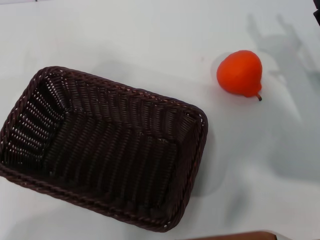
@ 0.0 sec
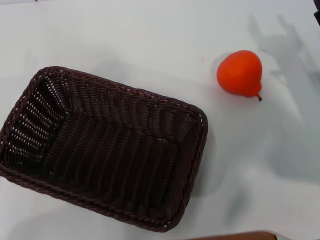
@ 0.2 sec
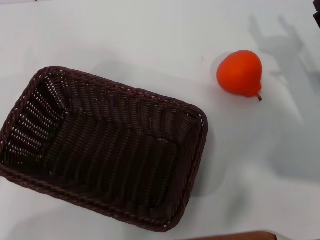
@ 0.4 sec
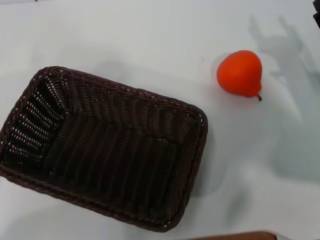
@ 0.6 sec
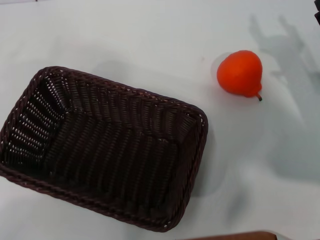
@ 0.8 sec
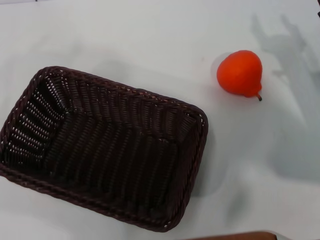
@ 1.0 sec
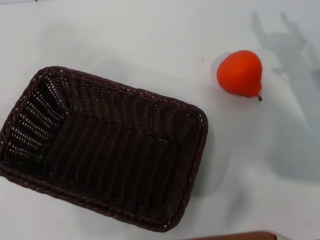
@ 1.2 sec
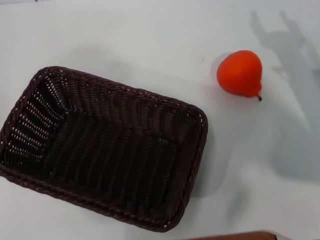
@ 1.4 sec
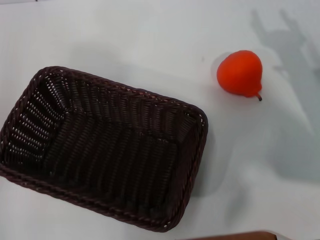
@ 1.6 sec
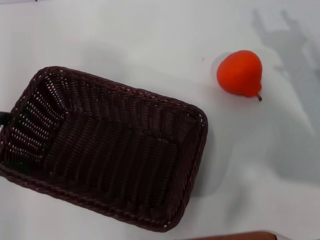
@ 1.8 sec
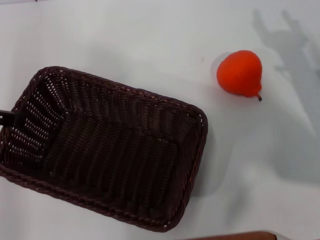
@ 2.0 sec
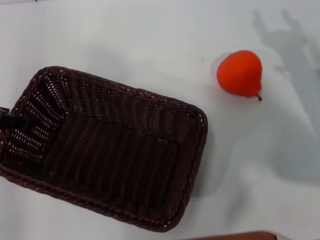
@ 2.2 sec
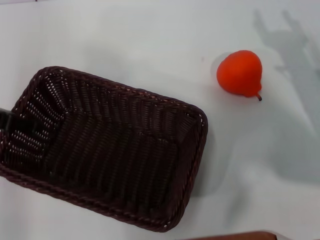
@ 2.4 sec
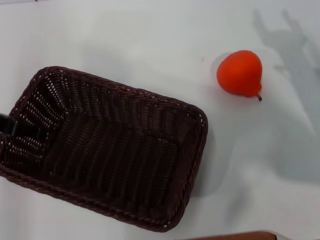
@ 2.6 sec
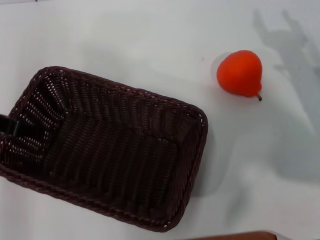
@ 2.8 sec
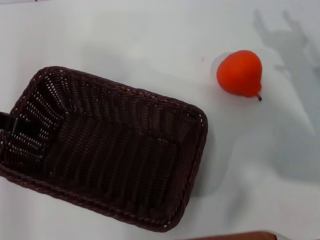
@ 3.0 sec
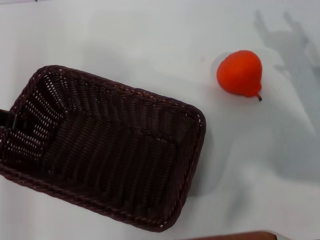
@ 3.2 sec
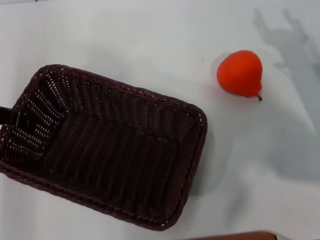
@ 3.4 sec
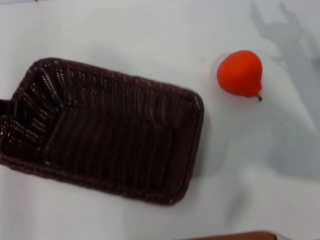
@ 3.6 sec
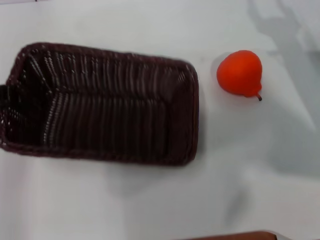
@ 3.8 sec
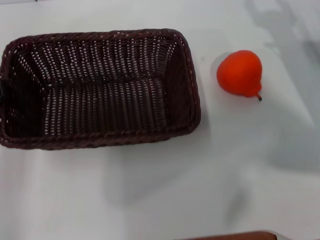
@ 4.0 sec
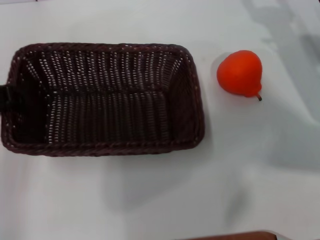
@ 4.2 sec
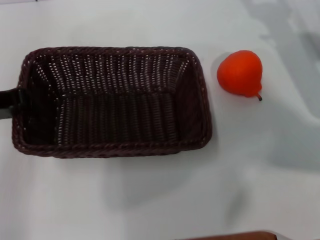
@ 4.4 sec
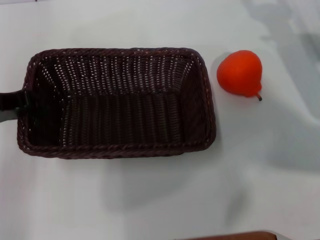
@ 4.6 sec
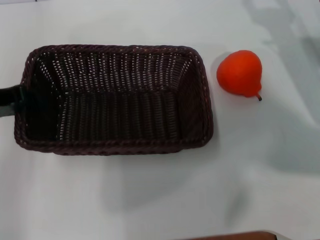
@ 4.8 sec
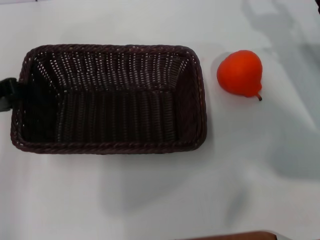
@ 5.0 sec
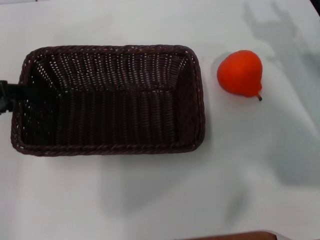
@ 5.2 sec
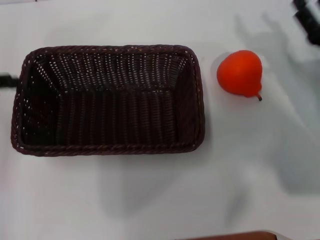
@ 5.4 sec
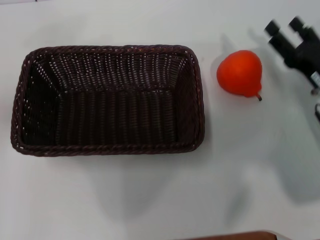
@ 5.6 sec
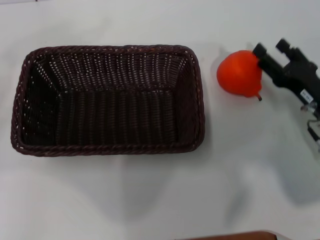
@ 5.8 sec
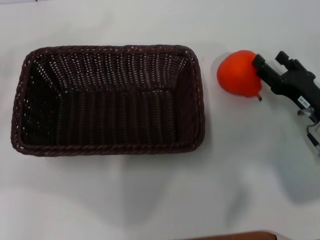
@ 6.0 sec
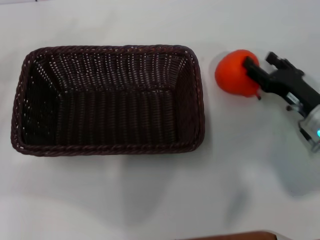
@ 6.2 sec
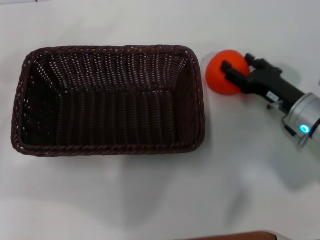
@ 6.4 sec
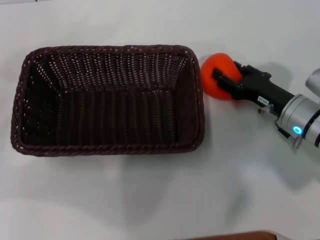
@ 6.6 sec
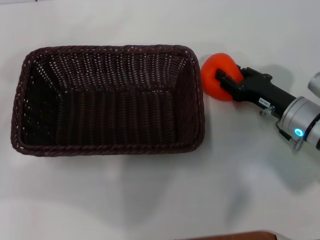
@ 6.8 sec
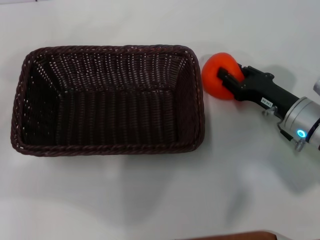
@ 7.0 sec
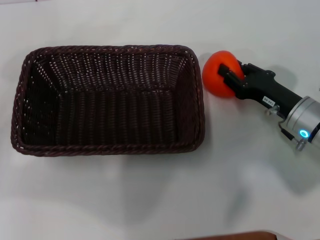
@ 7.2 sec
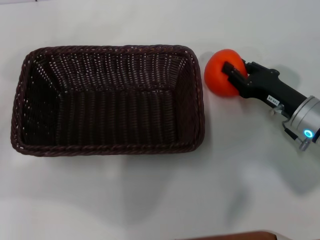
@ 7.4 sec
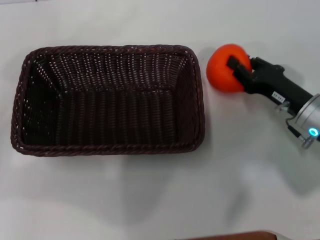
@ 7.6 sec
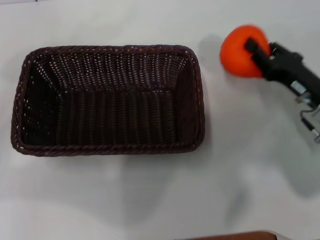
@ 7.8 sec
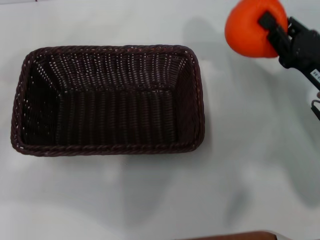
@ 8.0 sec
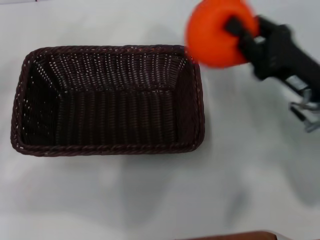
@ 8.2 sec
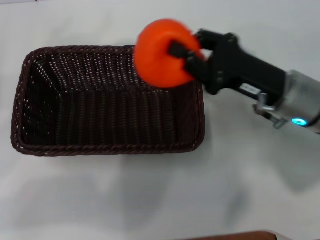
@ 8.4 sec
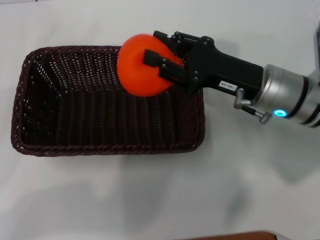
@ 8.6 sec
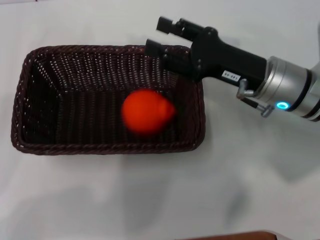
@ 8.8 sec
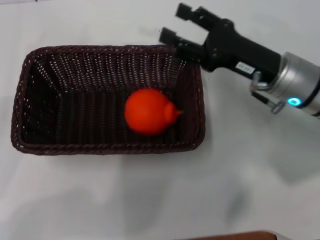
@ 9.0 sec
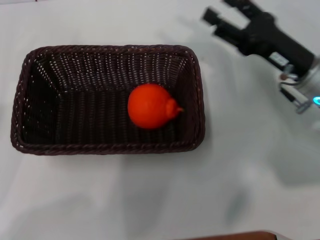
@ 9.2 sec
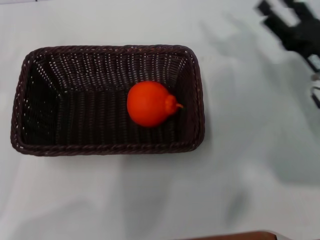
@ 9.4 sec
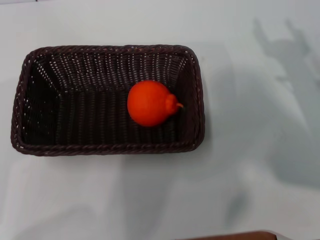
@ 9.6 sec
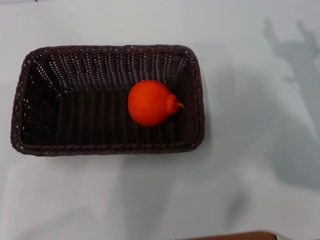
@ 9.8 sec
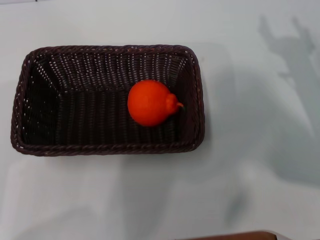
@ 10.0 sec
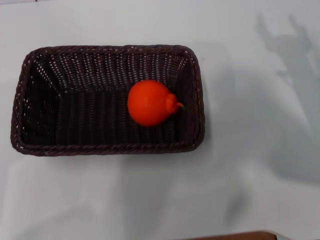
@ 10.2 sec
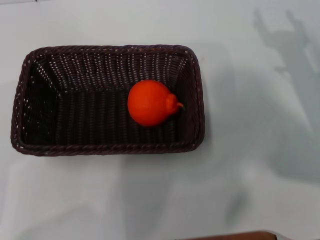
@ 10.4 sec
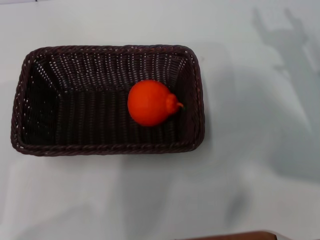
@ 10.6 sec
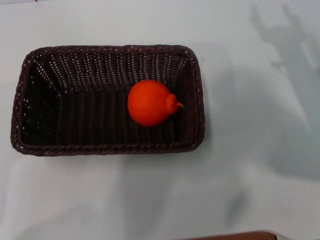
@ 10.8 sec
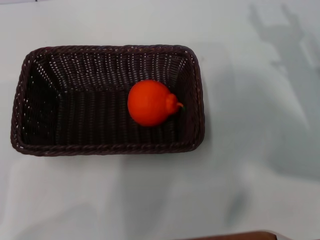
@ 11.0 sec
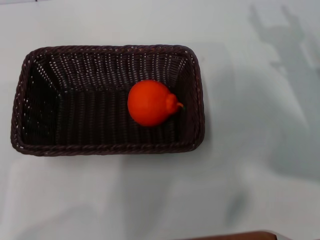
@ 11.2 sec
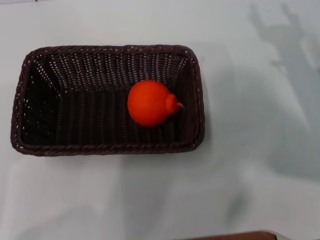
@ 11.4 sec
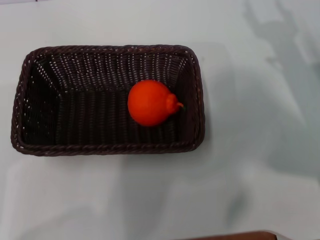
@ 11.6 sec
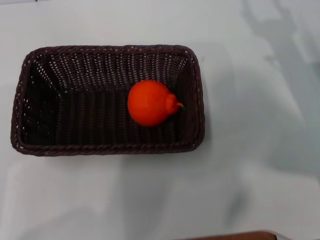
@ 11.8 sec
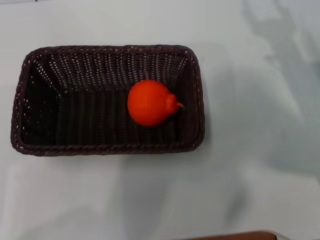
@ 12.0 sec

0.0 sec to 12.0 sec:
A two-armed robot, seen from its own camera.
Task of the whole recording: the left gripper pick up the black basket and place it horizontally in the middle of the table, the right gripper pick up the orange and place it into the black basket.
Step, 0.0 sec to 3.6 sec: Pick up the dark basket with the left gripper.
Step, 3.8 sec to 5.2 sec: Place the dark basket in the center of view with the left gripper.
Step, 5.6 sec to 7.6 sec: Pick up the orange with the right gripper.
Step, 7.8 sec to 8.8 sec: Place the orange into the dark basket with the right gripper.
0.0 sec to 1.6 sec: The left gripper heads upward and forward, covering some 20 cm.
1.6 sec to 3.0 sec: The left gripper travels downward and to the right by approximately 10 cm.
3.0 sec to 4.4 sec: The left gripper closes up. Meanwhile the right gripper moves forward, roughly 5 cm.
4.4 sec to 6.0 sec: The left gripper moves to the left, approximately 10 cm, and opens; the right gripper heads backward and downward, covering some 10 cm.
6.0 sec to 7.6 sec: The right gripper closes.
7.6 sec to 9.0 sec: The left gripper shifts roughly 5 cm downward, while the right gripper shifts approximately 10 cm upward and to the left, and opens.
9.0 sec to 10.4 sec: The right gripper goes some 10 cm to the right, and opens up.

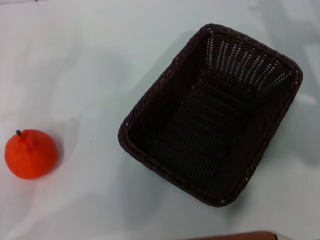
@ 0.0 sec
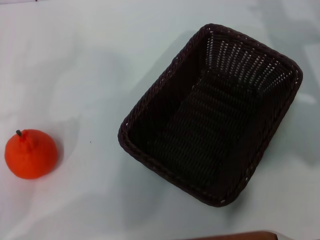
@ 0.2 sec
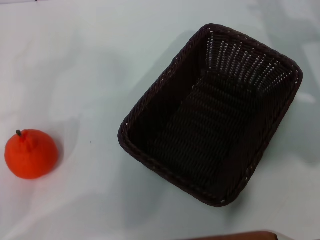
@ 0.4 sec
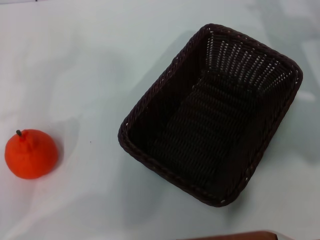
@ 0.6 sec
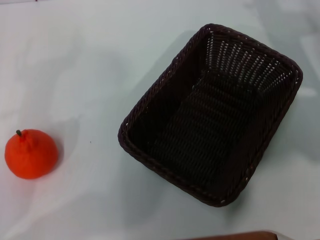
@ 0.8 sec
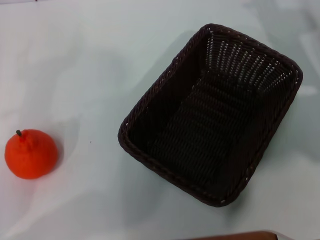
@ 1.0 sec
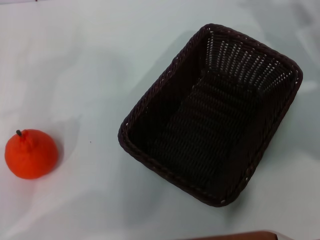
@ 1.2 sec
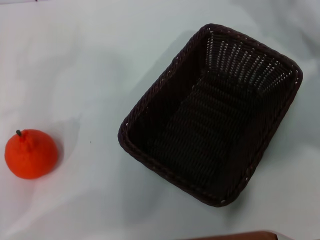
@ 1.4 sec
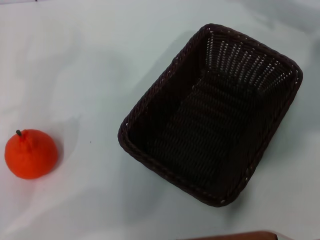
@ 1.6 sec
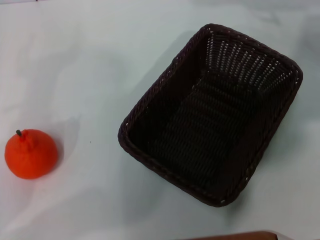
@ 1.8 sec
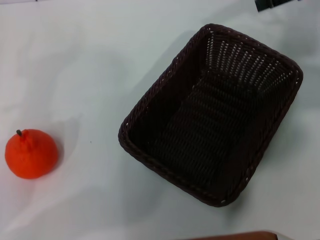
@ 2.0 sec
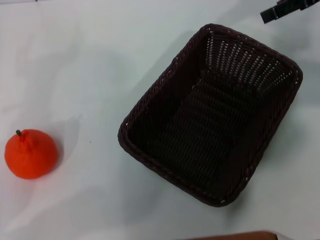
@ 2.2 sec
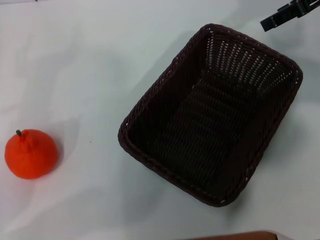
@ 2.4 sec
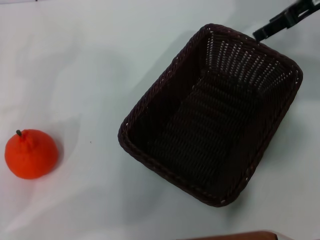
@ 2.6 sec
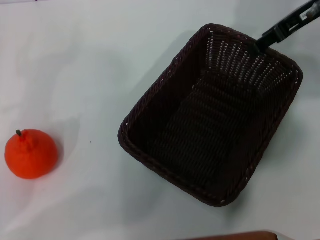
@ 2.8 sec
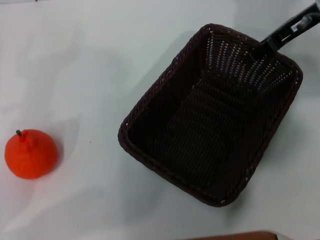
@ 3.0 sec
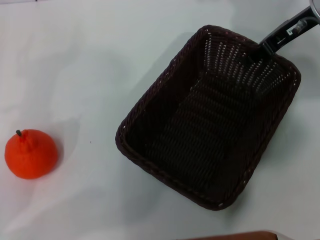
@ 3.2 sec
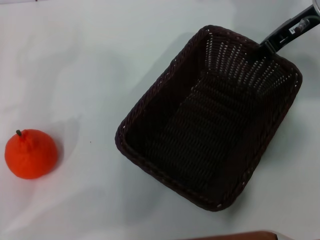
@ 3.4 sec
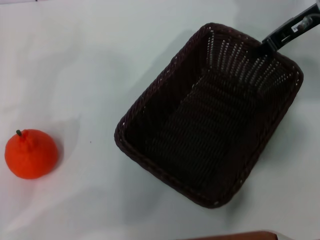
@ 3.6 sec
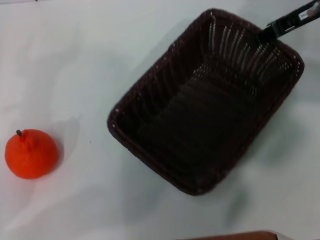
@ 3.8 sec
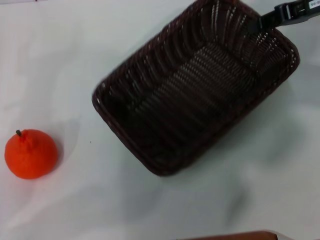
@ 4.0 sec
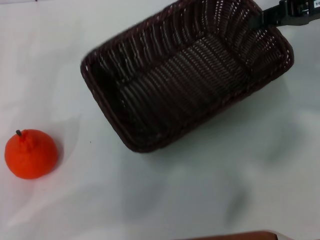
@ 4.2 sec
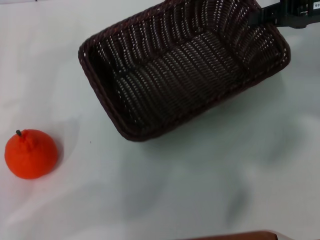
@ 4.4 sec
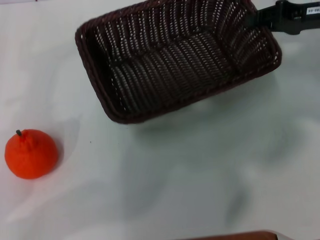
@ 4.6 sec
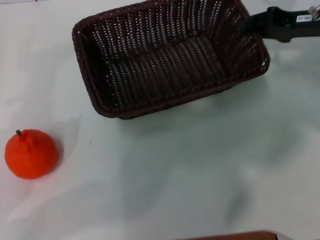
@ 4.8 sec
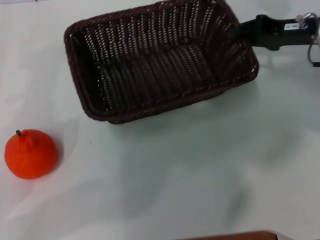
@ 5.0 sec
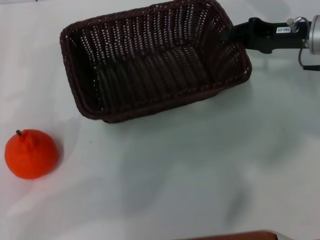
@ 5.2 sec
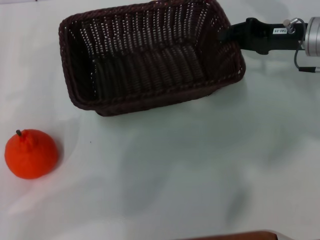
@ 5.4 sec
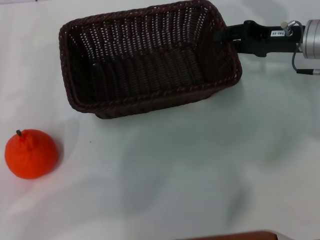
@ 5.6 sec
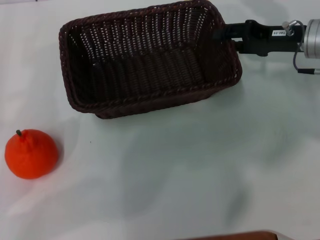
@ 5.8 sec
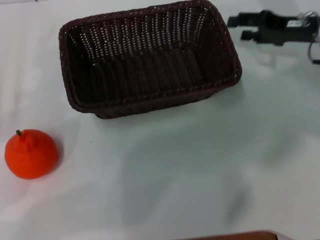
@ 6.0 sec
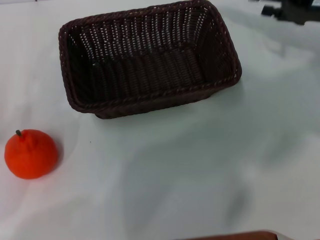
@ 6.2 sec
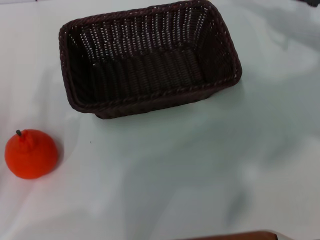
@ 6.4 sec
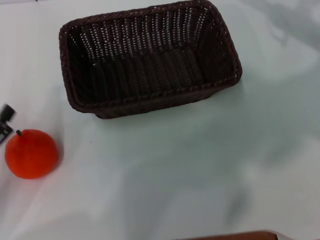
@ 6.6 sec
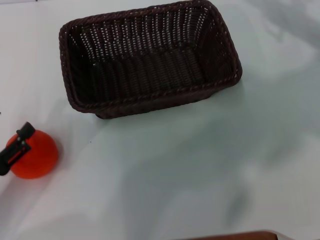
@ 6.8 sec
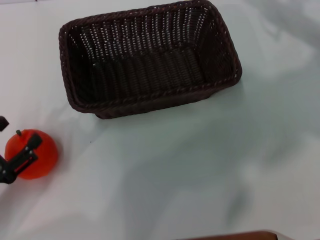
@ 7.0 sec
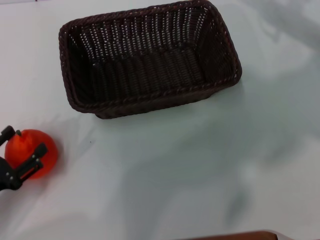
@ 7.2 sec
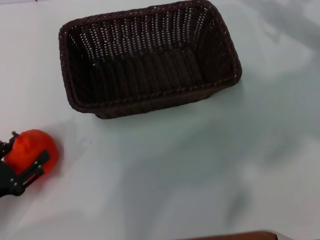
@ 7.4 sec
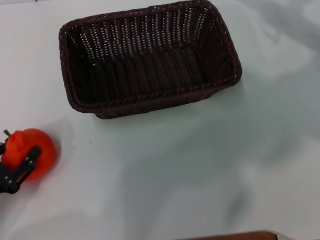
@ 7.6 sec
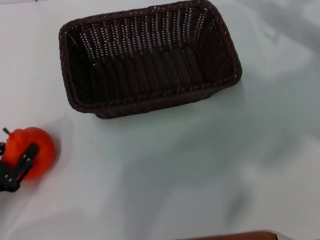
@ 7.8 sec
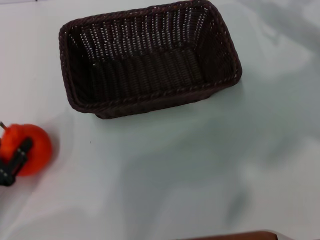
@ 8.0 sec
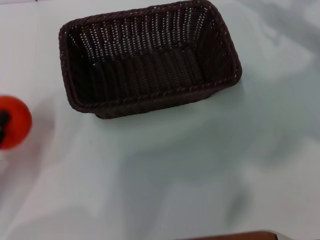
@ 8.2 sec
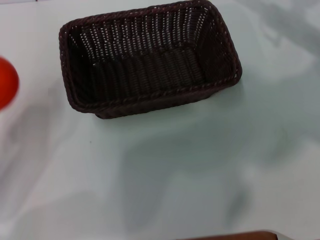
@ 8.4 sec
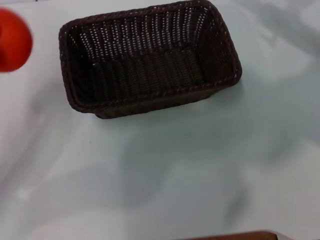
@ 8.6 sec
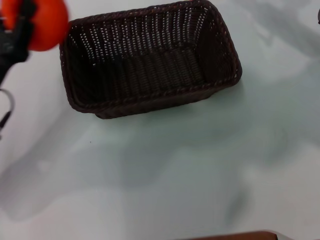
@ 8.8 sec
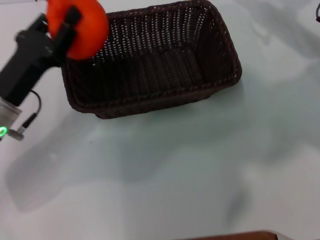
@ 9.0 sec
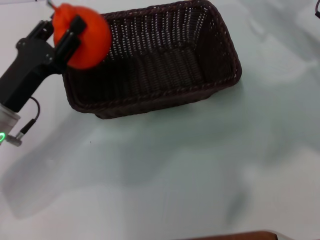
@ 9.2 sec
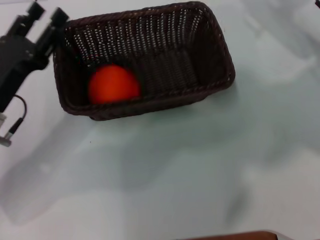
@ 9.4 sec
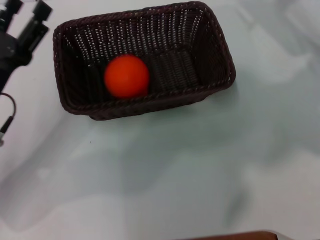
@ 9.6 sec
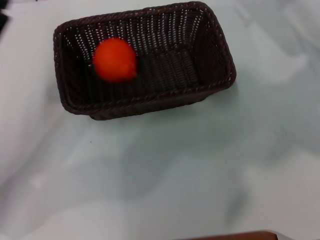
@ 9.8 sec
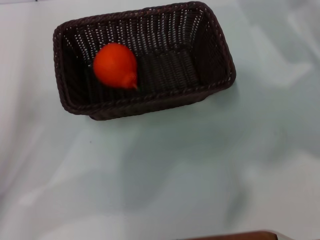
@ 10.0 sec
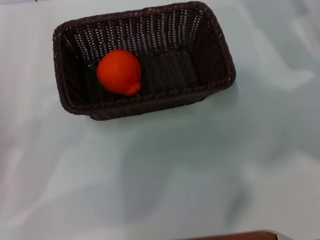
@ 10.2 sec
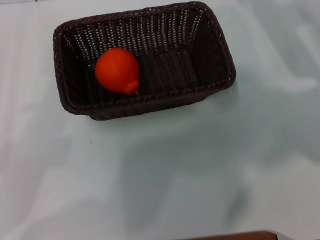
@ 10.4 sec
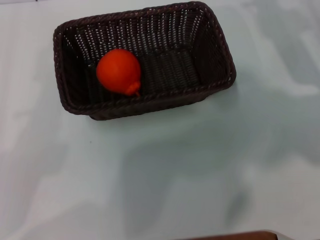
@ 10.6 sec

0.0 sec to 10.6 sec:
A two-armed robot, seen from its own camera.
Task of the whole recording: the right gripper pick up the black basket and place it horizontally in the middle of the table, the left gripper pick up the orange and place it into the black basket.
Step, 0.0 sec to 3.6 sec: Pick up the dark basket with the right gripper.
Step, 3.8 sec to 6.0 sec: Place the dark basket in the center of view with the right gripper.
Step, 6.2 sec to 8.0 sec: Pick up the orange with the left gripper.
Step, 8.2 sec to 9.4 sec: Place the orange into the dark basket with the left gripper.
0.0 sec to 1.6 sec: The right gripper is displaced upward by roughly 10 cm.
1.6 sec to 3.0 sec: The right gripper travels to the left by some 5 cm.
3.0 sec to 4.6 sec: The right gripper travels to the right by approximately 5 cm, and closes.
4.6 sec to 6.0 sec: The right gripper opens up.
6.0 sec to 7.6 sec: The left gripper goes some 10 cm downward and backward.
7.6 sec to 9.0 sec: The left gripper is displaced forward, to the right and upward by roughly 15 cm, and closes up.
9.0 sec to 10.6 sec: The left gripper is displaced backward and to the left by some 15 cm, and opens its fingers.
